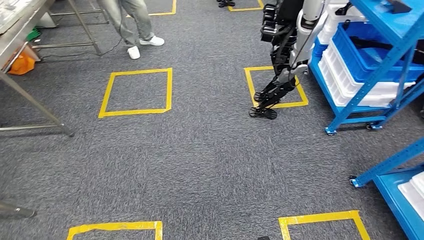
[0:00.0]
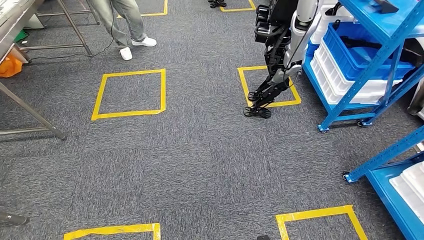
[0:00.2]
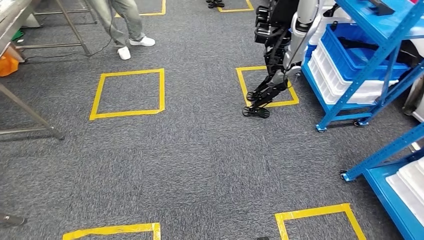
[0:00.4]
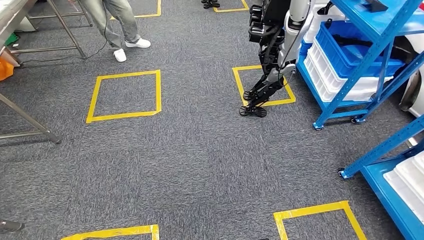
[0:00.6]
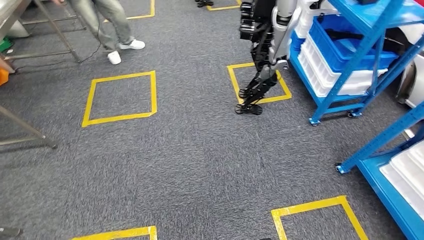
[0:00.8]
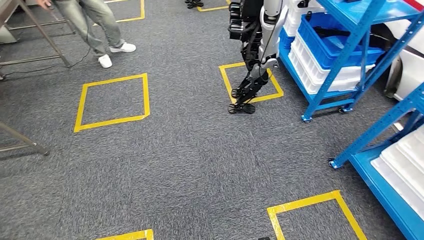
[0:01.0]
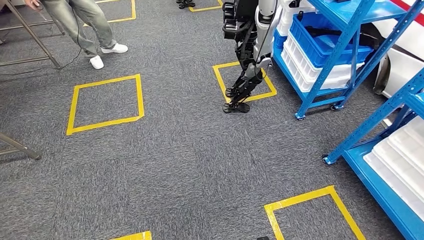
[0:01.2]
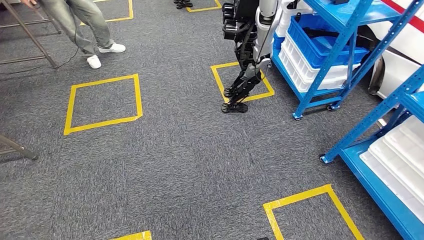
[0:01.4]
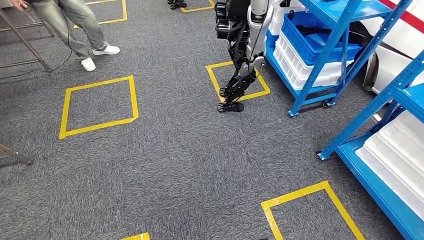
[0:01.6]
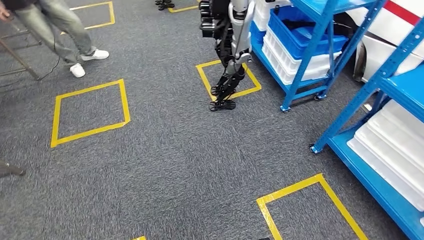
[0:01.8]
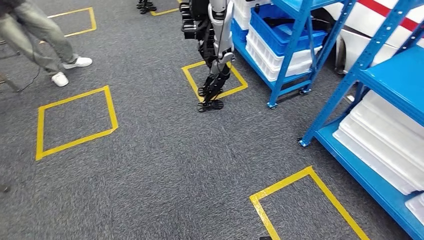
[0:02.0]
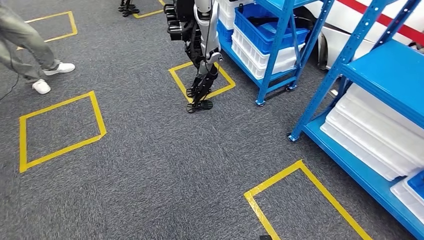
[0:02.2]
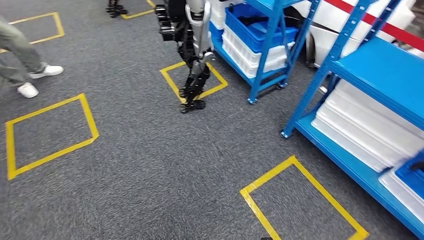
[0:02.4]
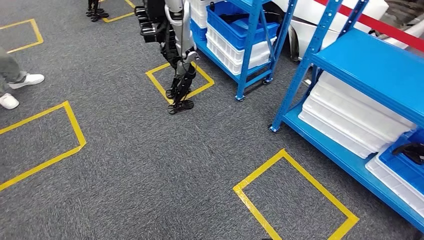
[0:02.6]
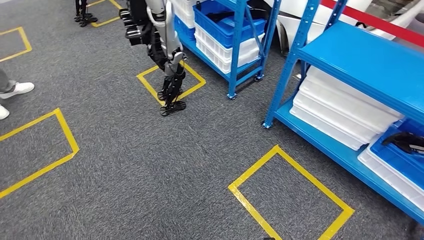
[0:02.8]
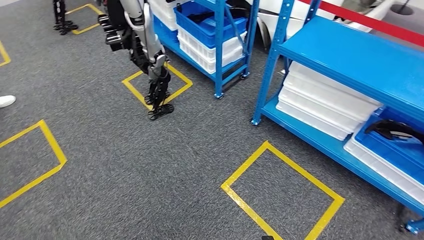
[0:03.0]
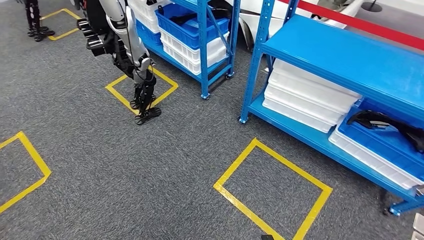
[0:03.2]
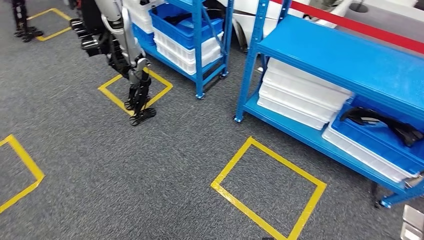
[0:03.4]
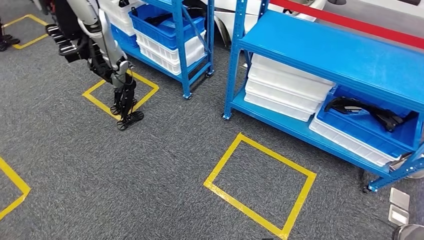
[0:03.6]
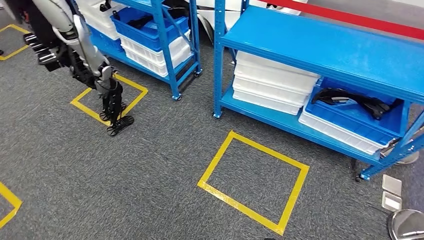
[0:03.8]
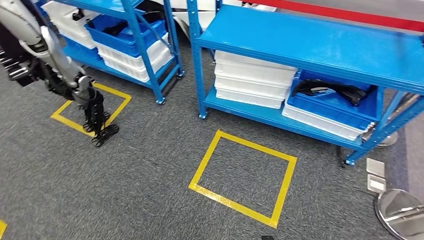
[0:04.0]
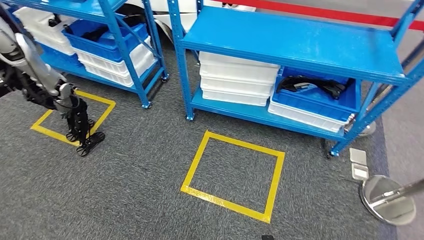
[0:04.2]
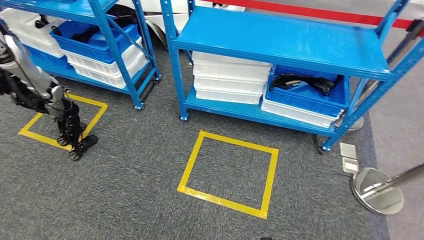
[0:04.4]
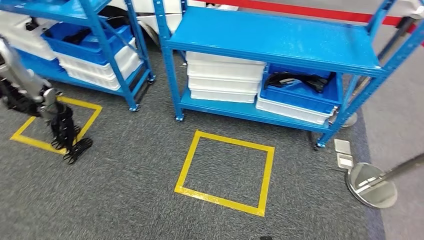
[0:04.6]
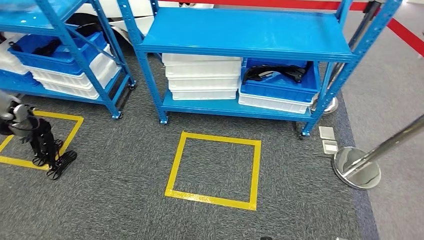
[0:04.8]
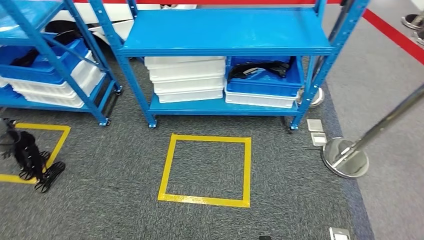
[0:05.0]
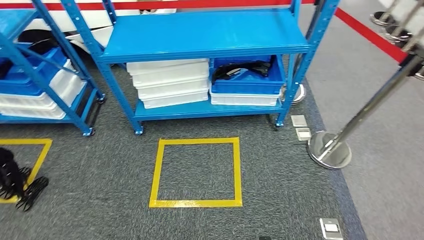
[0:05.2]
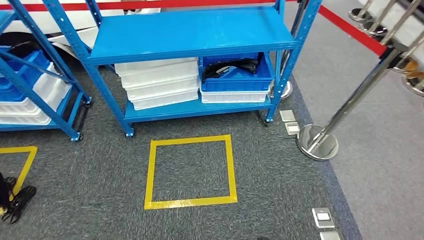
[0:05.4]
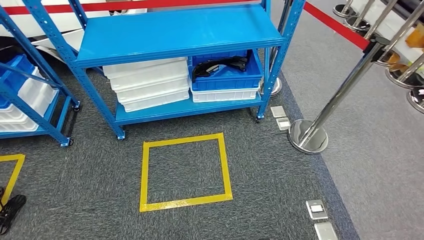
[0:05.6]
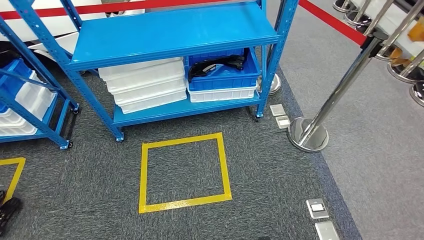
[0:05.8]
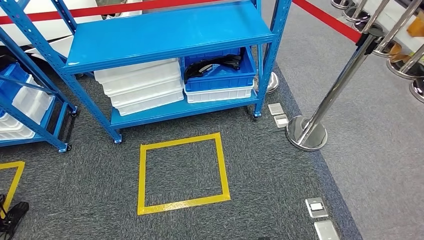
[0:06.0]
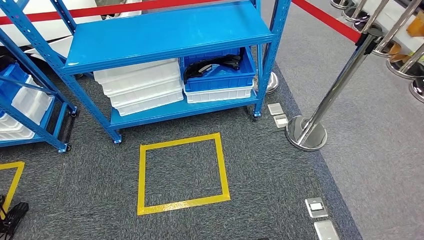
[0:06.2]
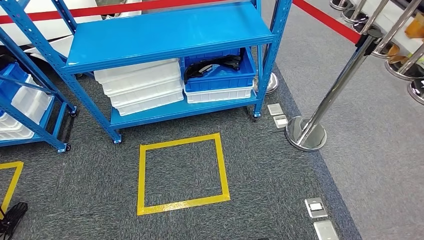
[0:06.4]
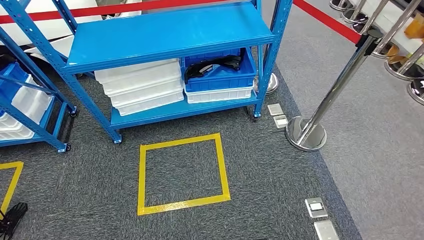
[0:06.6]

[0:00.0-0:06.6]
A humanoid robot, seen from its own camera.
Step, 0:00.0 to 0:06.4: Return to the initial position at the shelf.
